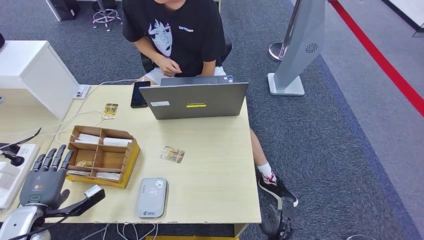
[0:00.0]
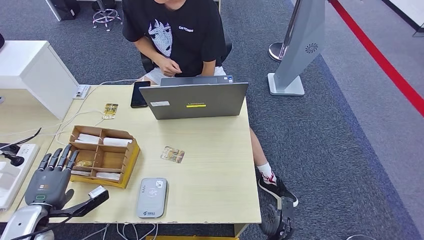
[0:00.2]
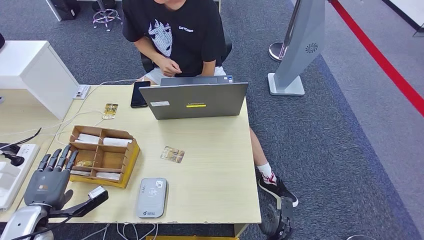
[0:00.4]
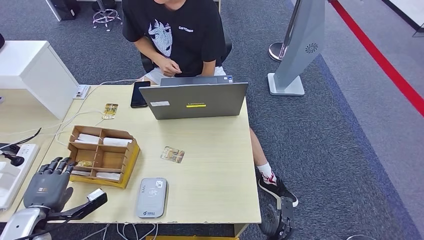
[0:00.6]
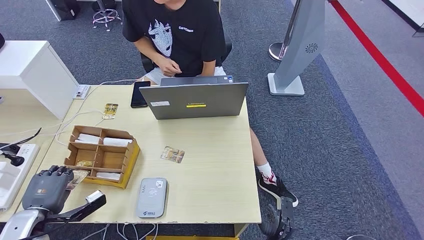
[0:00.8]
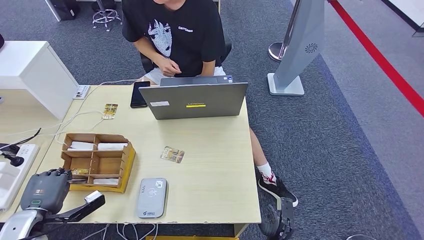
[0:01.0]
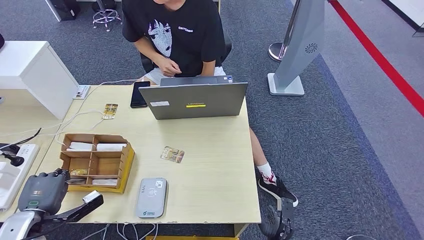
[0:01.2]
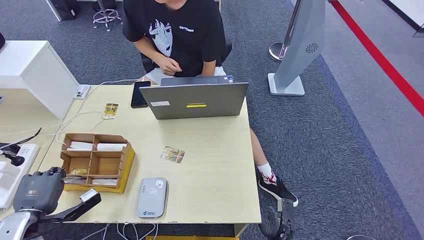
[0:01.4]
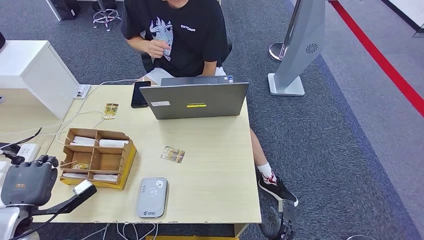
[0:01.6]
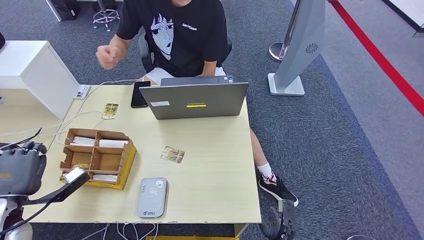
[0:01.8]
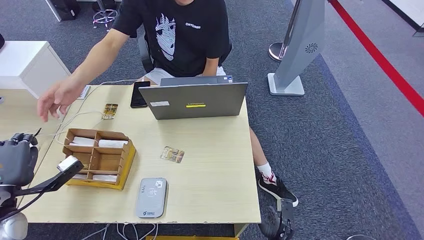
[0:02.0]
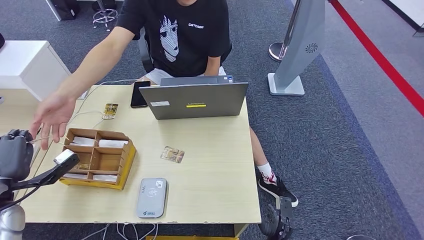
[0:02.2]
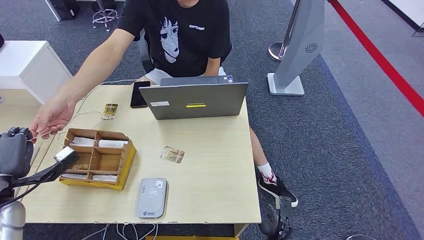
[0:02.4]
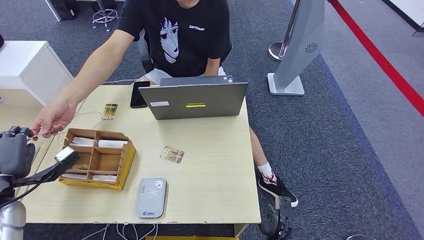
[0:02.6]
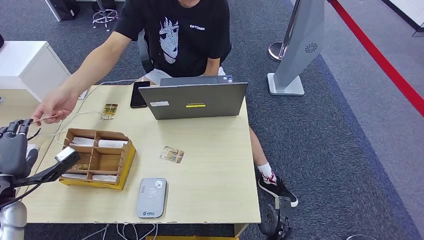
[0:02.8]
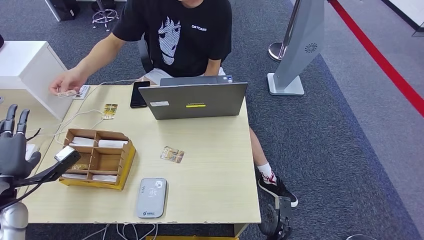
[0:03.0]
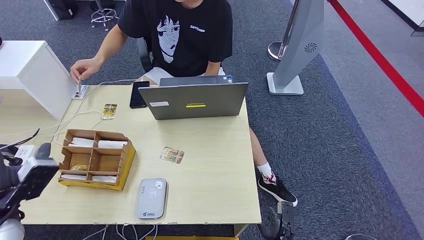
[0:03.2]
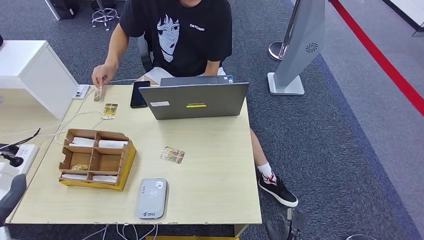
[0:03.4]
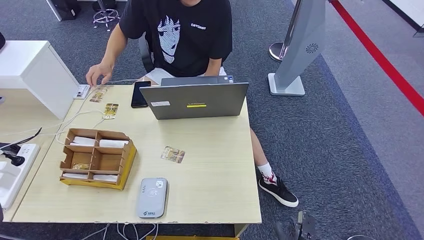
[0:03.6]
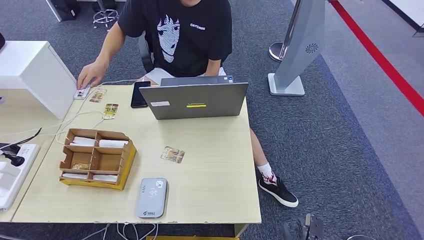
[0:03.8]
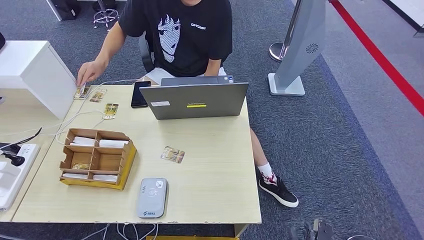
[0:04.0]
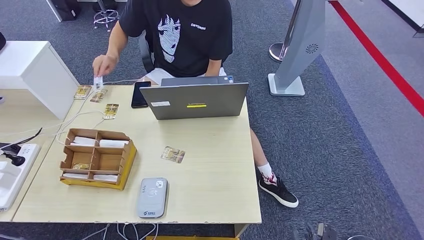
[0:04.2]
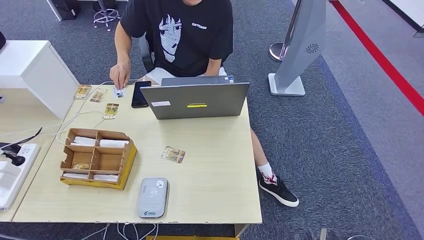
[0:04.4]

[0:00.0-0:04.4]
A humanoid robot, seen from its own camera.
Step, 0:02.0 to 0:04.4: Hand the room key to the person.
0:00.0 to 0:01.4: The two hands keep their place.
0:01.4 to 0:03.0: The left hand moves upward, about 10 cm.
0:03.0 to 0:04.4: The left hand moves backward and downward, about 30 cm. The right hand travels backward and to the right by approximately 10 cm.
